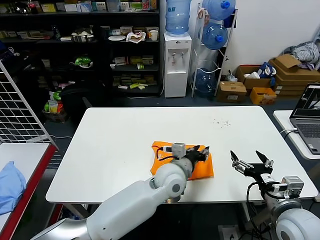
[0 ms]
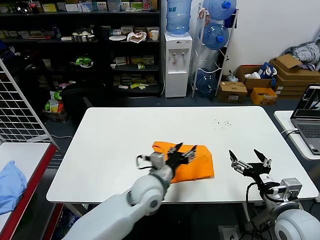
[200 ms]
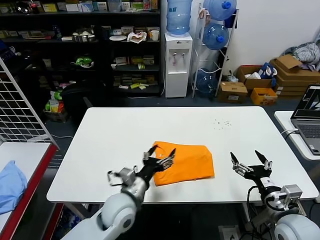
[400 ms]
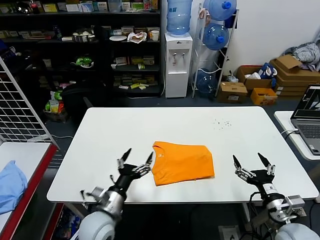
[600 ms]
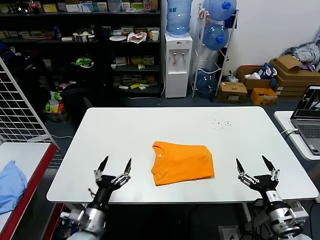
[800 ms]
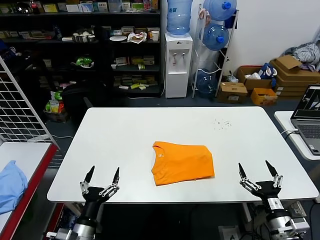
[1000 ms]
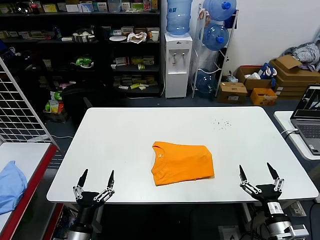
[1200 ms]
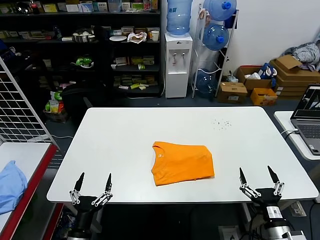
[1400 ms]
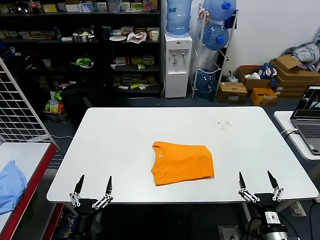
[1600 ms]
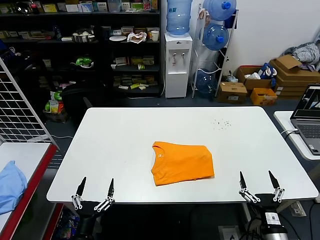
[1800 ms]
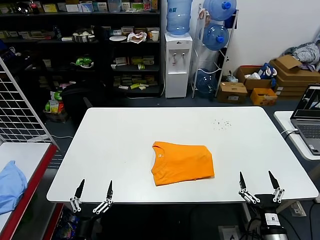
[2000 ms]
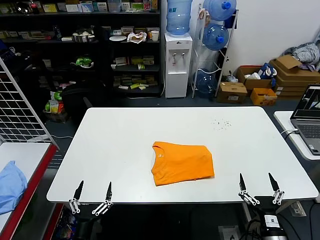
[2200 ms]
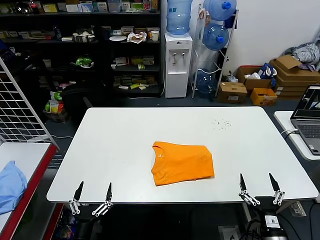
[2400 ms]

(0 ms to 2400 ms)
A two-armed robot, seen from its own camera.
Task of the whole recording: fold and organize the clothes.
0 ms - 1200 ms: The left gripper is displaced to the left and backward by approximately 35 cm, and opens, while the right gripper heads downward and backward, covering about 10 cm.
1200 ms - 2400 ms: The right gripper changes place by roughly 5 cm.

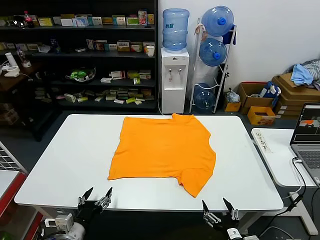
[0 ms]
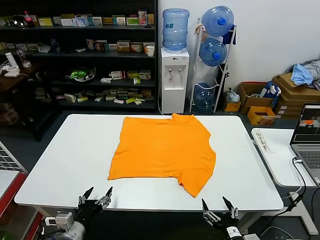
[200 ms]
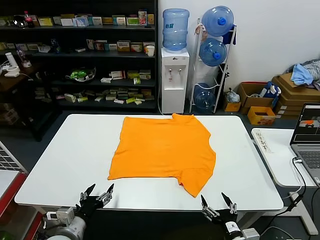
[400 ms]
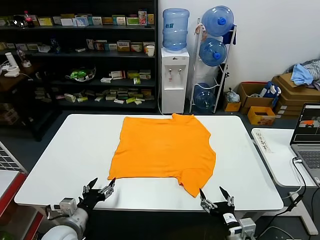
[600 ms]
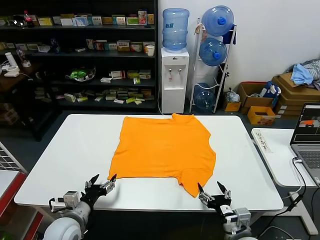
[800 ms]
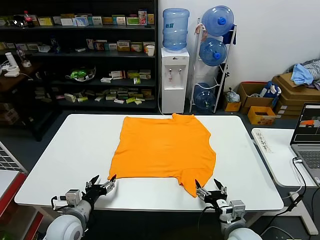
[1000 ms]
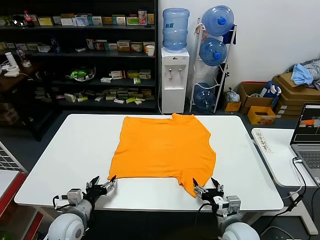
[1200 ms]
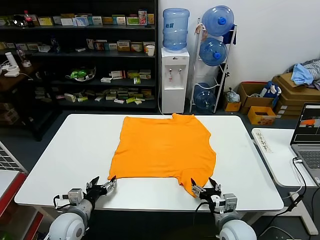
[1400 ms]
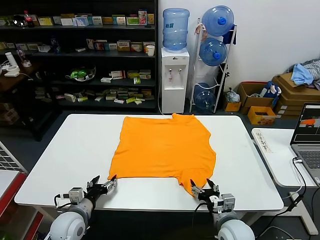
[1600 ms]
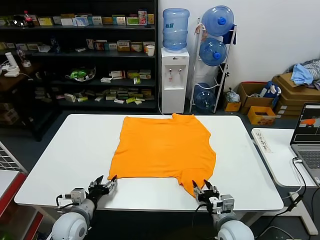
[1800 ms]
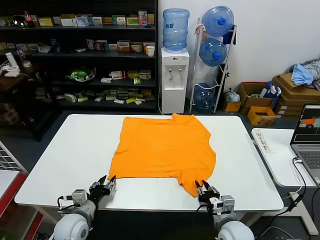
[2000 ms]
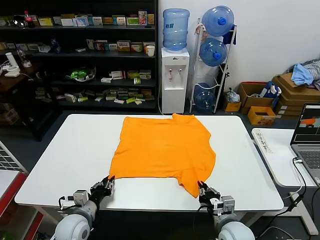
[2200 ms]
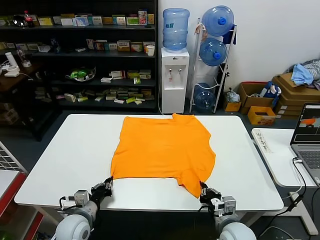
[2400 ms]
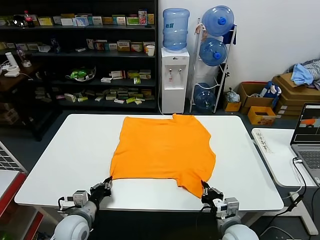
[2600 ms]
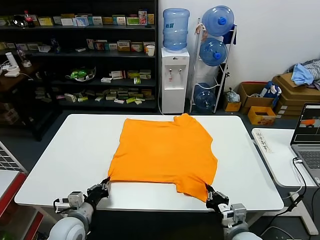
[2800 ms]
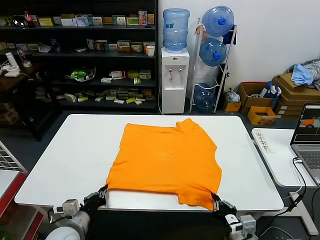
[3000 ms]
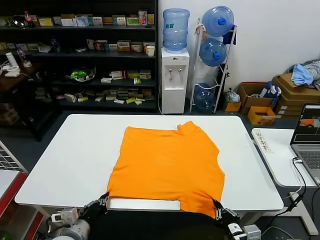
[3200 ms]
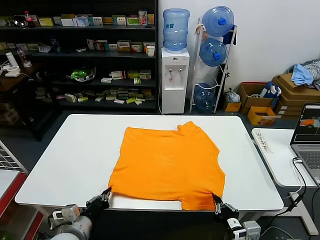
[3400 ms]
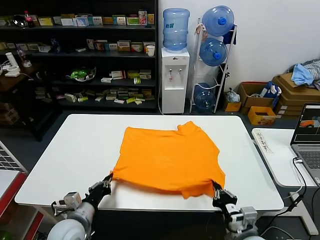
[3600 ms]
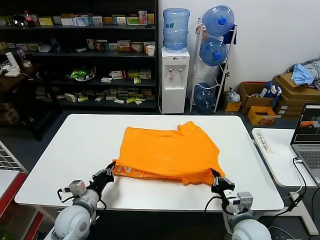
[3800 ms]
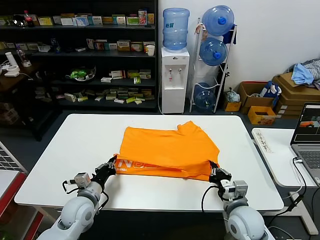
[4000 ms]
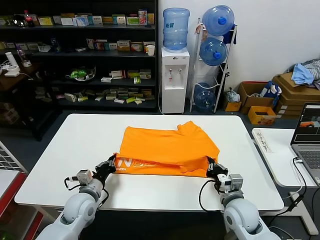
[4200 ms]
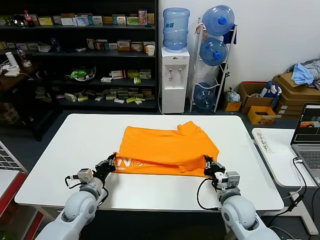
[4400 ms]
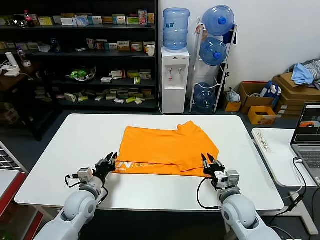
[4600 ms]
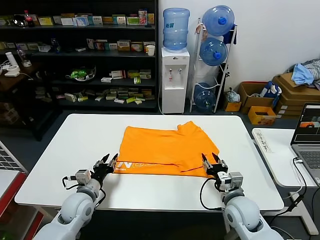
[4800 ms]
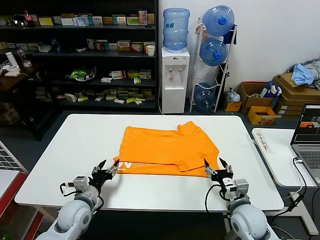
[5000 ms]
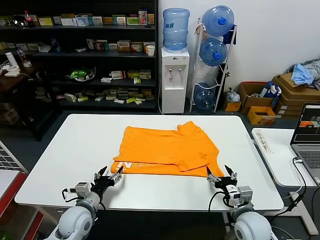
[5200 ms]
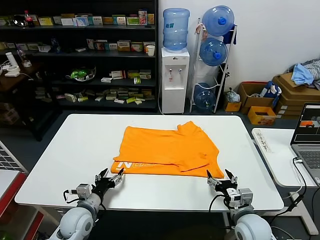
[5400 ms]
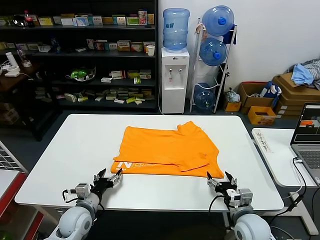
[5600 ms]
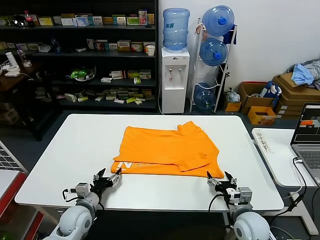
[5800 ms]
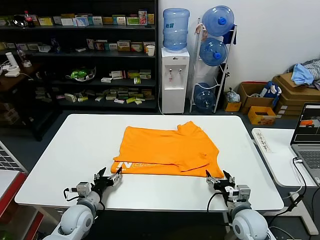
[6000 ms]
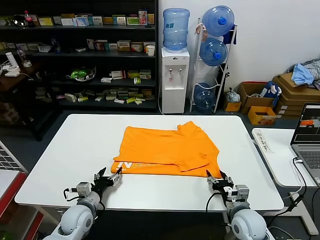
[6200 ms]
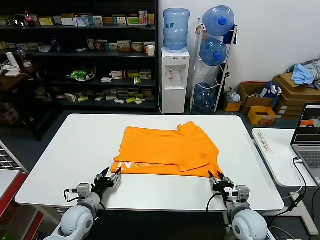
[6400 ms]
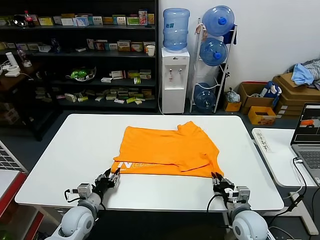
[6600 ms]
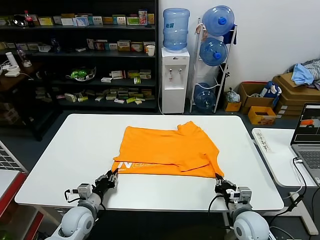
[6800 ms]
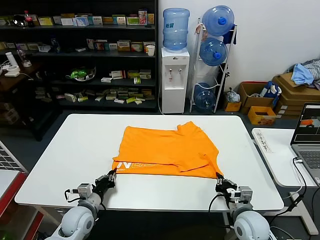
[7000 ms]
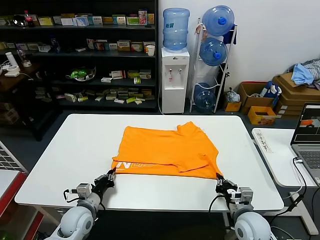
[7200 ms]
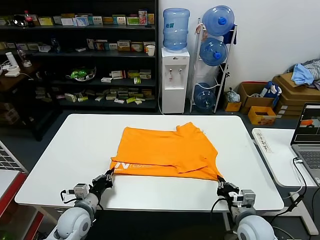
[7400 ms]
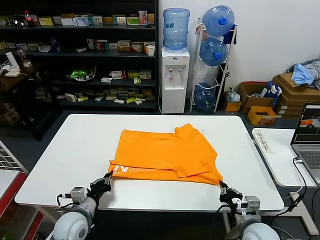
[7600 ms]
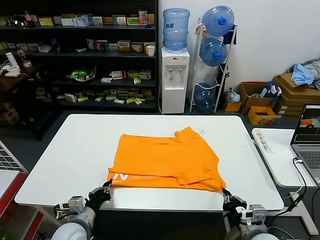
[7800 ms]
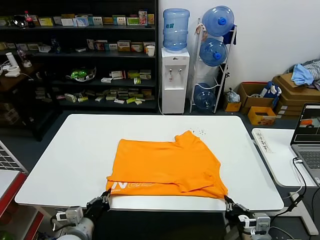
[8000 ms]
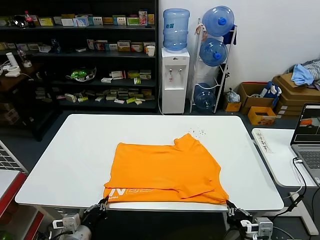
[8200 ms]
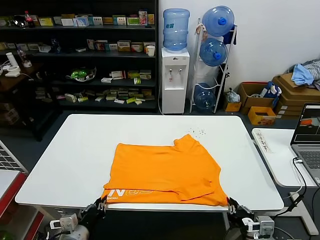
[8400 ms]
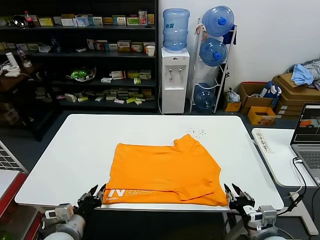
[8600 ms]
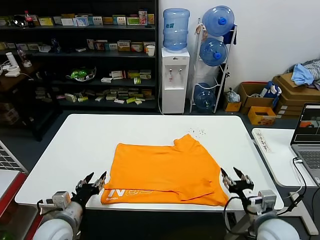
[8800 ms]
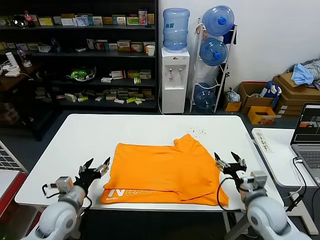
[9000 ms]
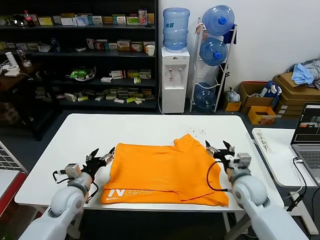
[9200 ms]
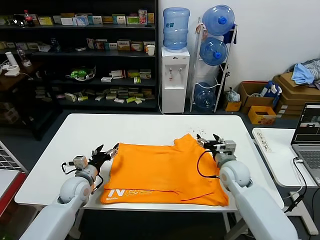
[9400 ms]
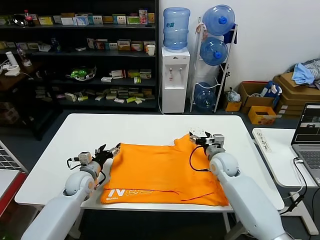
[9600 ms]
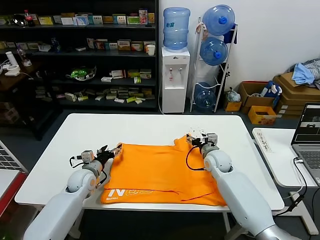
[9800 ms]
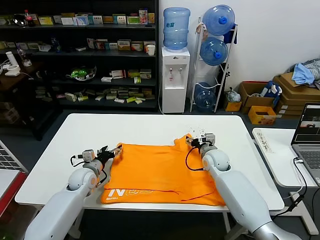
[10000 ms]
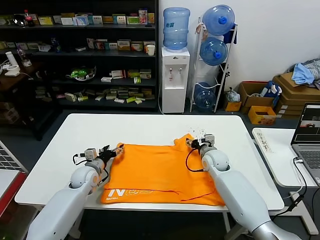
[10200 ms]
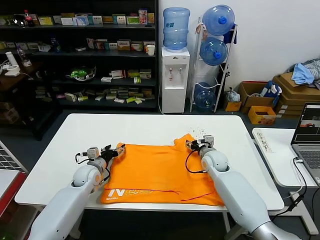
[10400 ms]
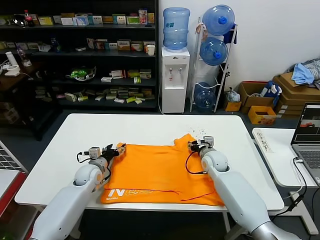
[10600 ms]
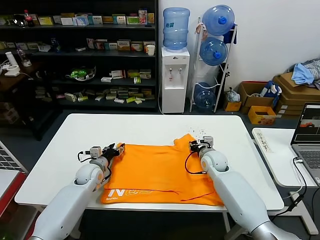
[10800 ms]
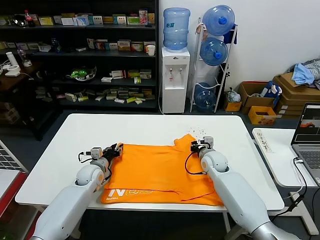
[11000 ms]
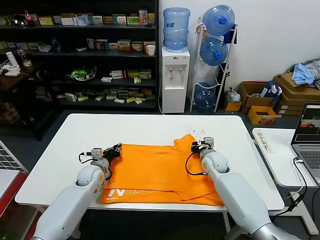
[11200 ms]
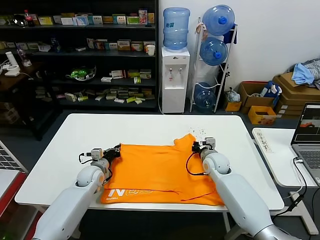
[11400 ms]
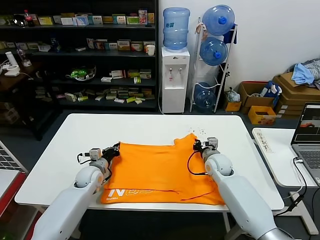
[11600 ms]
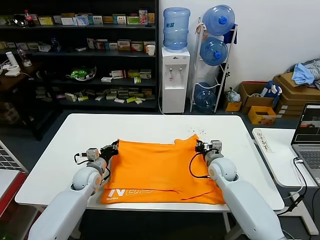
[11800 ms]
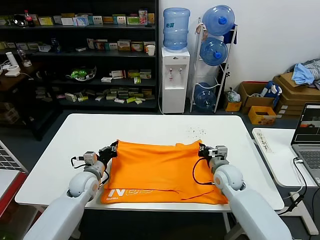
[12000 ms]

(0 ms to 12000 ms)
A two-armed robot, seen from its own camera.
Task of the whole recording: fold and organize the clothes.
Step, 0 ms - 2400 ms: use both grippers simultaneously to clamp the lower edge of the clothing fabric.
Step, 2600 ms - 4600 ms: use both grippers to drag the lower edge of the fabric forward and fold it over the upper edge.
Step, 4800 ms - 8400 ms: Drag the clothes downward with both gripper.
Step, 8600 ms - 11400 ms: use both grippers simultaneously to clamp the upper edge of the clothing fabric.
1600 ms - 3000 ms: The left gripper travels backward by about 5 cm, and closes its fingers; the right gripper is displaced backward by some 10 cm, and closes.
3000 ms - 4400 ms: Both grippers move forward, roughly 15 cm.
4400 ms - 6000 ms: The right gripper shifts by approximately 5 cm, and opens up. Meanwhile the left gripper ends up approximately 5 cm from where it was, and opens up.
6000 ms - 7600 ms: The left gripper ends up some 5 cm from where it was, and closes, while the right gripper shifts roughly 5 cm backward, and closes up.
7600 ms - 9000 ms: The right gripper heads forward and upward, covering about 10 cm, and opens up. The left gripper travels upward by about 5 cm, moves approximately 10 cm backward and comes back, and opens its fingers.
9000 ms - 10400 ms: The left gripper heads forward, covering roughly 15 cm. Meanwhile the right gripper is displaced forward and to the left by roughly 20 cm.
10400 ms - 12000 ms: The right gripper travels backward by approximately 10 cm, and closes up. The left gripper closes up.

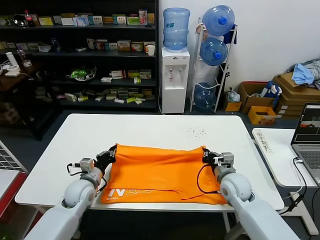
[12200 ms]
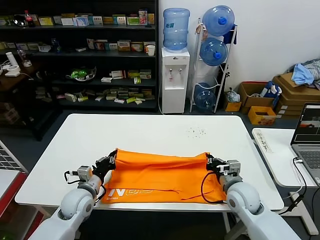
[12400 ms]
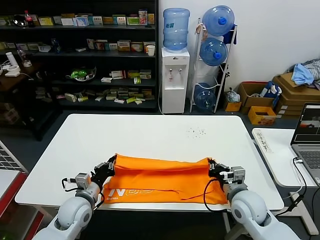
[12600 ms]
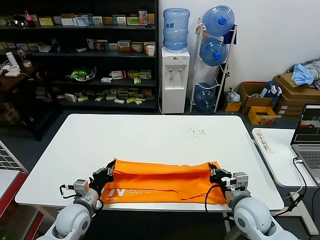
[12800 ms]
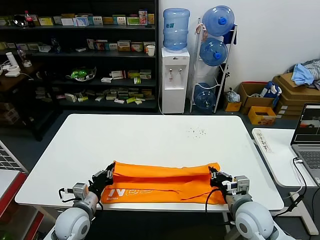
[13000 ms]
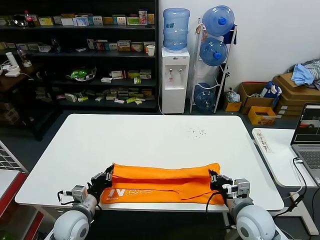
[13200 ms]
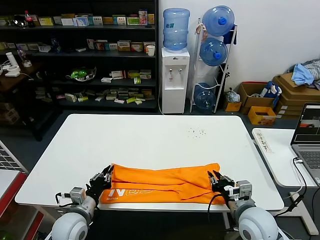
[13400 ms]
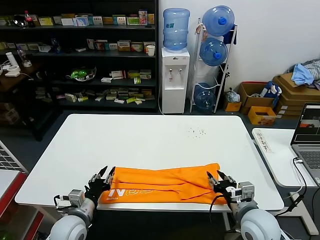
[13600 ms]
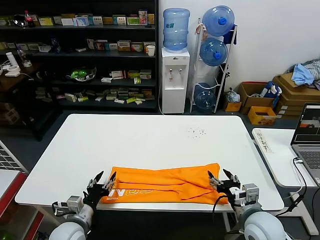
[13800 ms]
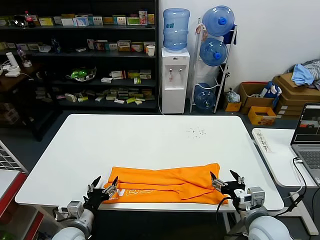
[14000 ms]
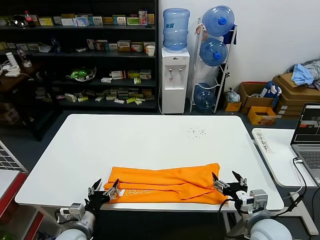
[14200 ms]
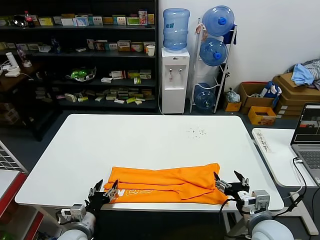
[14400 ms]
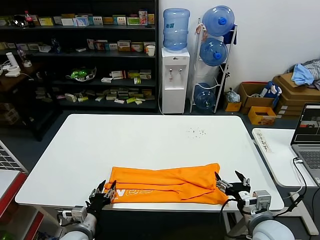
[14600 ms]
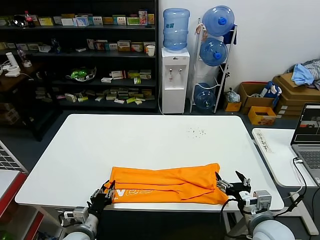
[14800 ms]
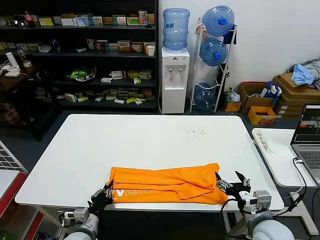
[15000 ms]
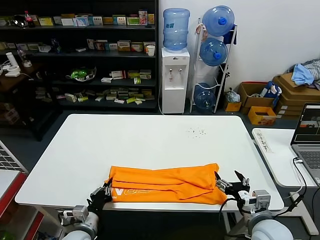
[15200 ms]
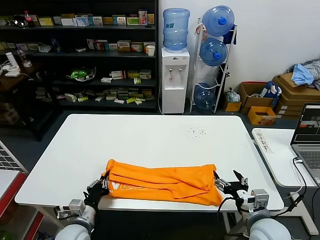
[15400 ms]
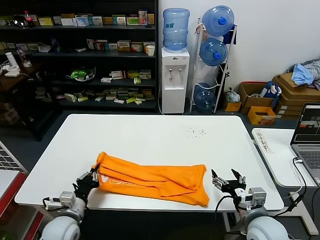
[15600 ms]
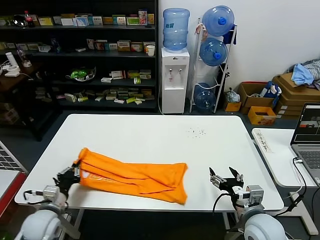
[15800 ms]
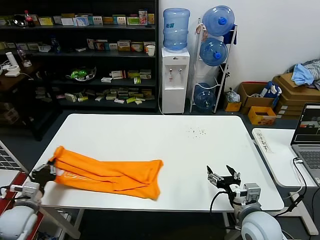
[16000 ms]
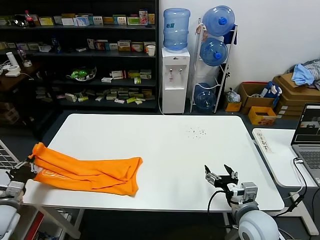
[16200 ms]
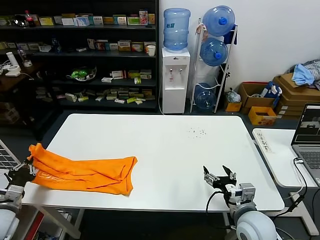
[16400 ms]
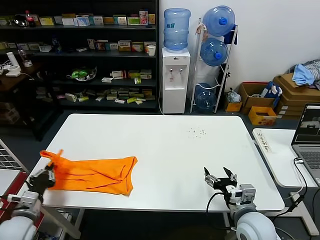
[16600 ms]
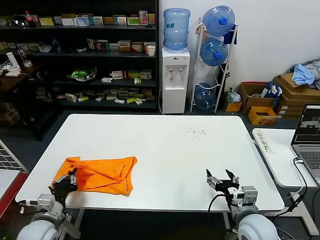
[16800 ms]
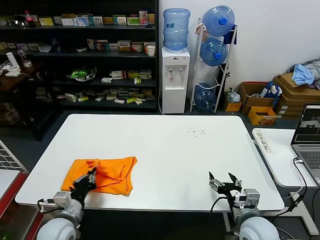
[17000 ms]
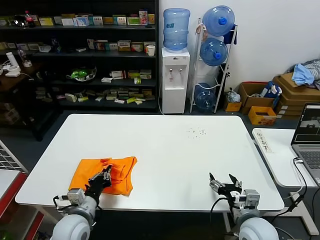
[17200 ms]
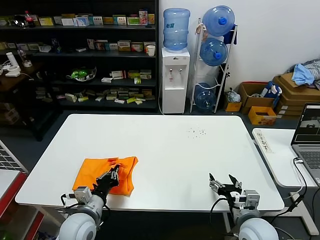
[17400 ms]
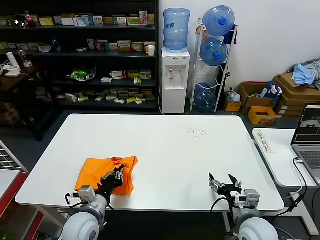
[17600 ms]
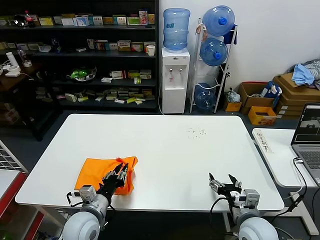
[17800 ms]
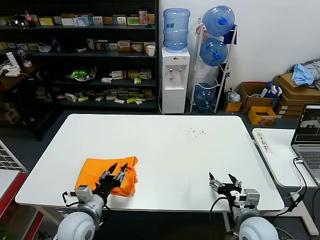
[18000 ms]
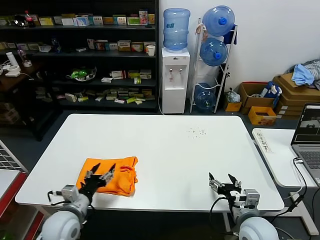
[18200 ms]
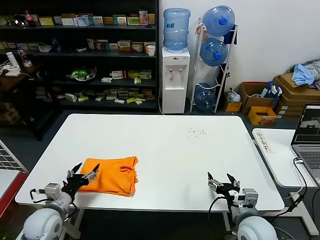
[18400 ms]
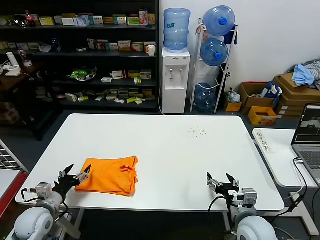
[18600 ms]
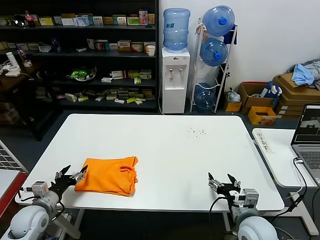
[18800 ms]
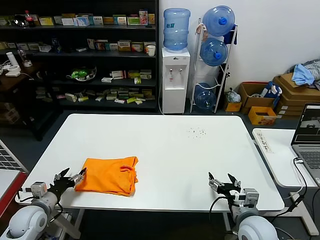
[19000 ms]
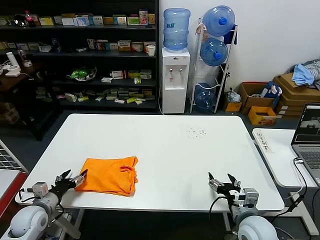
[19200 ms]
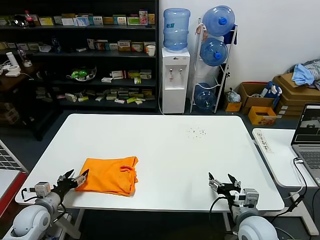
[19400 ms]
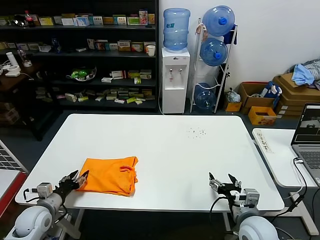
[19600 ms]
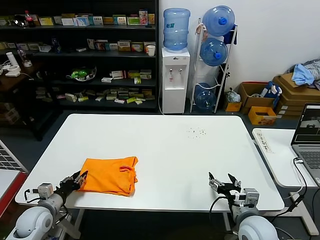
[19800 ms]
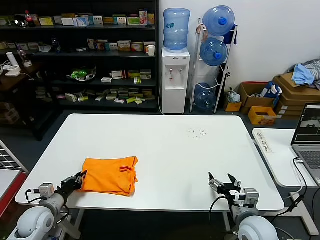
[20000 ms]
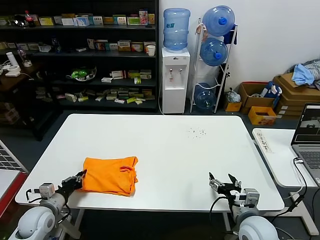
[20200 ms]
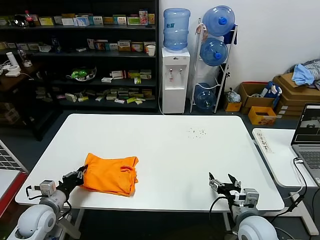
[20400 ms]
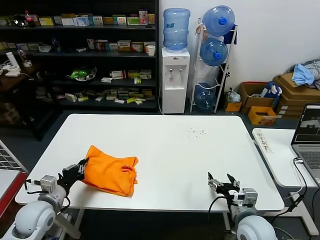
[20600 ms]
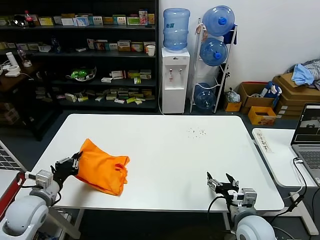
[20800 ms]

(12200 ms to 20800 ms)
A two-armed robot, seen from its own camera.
Task of the whole recording: fold and organize the clothes.
Step, 12200 ms - 13400 ms: use both grippers to drag the upper edge of the fabric backward and fold it over the lower edge.
Step, 13600 ms - 15000 ms: use the left gripper to clamp the left edge of the fabric.
Step, 15400 ms - 17800 ms: use the left gripper to drag the left edge of the fabric to the left and folds it over the right edge.
12200 ms - 13600 ms: The two grippers go about 10 cm backward. The left gripper opens its fingers, while the right gripper opens.
13600 ms - 15000 ms: The left gripper travels downward by roughly 5 cm, and opens and closes again, while the right gripper opens up.
15000 ms - 16600 ms: The left gripper is displaced to the left and upward by approximately 20 cm.
16600 ms - 18000 ms: The left gripper heads to the right, covering some 20 cm, and opens.
18000 ms - 19400 ms: The left gripper moves to the left, about 20 cm, and opens up.
19400 ms - 20800 ms: The left gripper travels upward by approximately 10 cm, and closes up.
